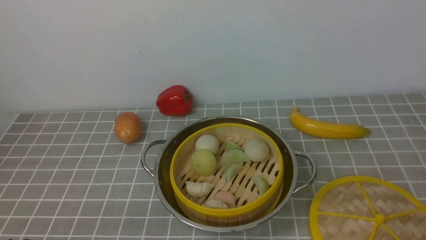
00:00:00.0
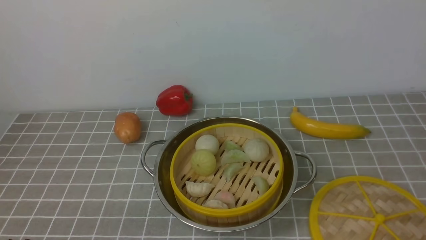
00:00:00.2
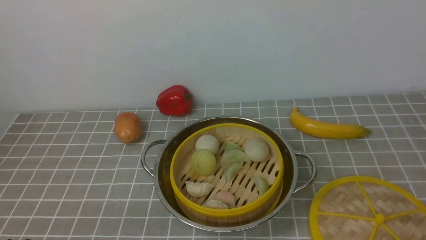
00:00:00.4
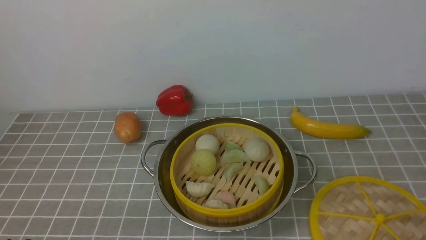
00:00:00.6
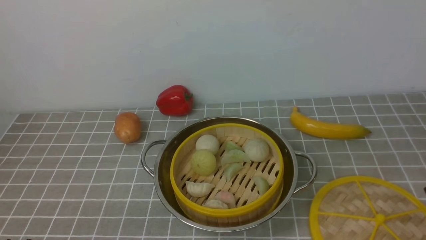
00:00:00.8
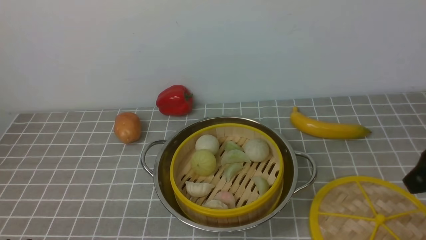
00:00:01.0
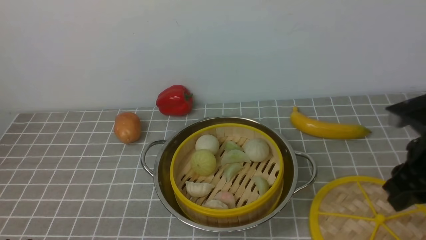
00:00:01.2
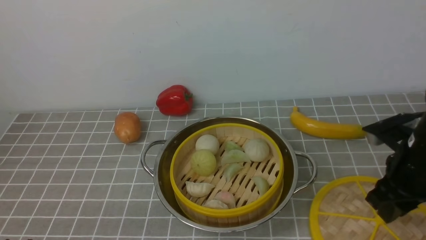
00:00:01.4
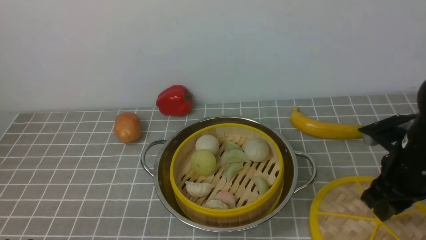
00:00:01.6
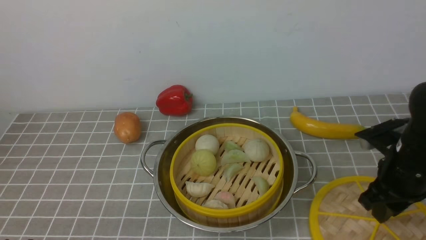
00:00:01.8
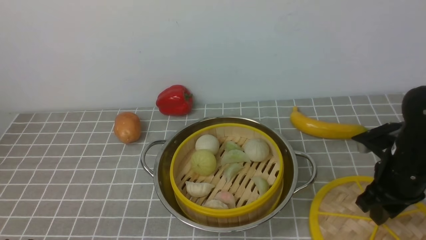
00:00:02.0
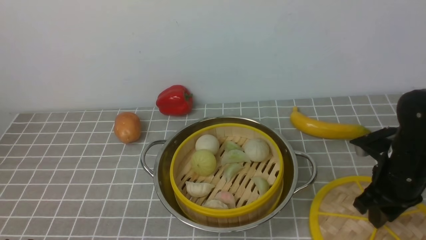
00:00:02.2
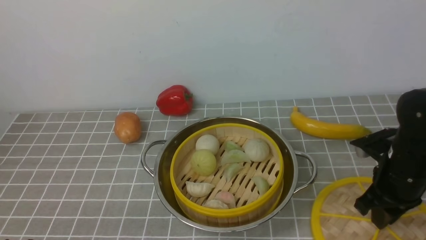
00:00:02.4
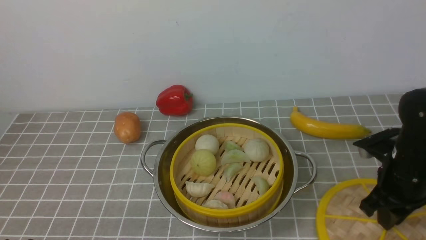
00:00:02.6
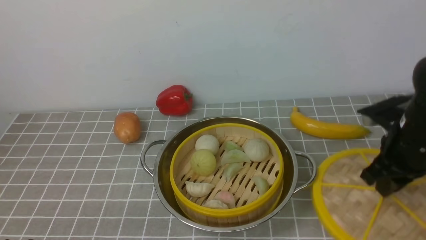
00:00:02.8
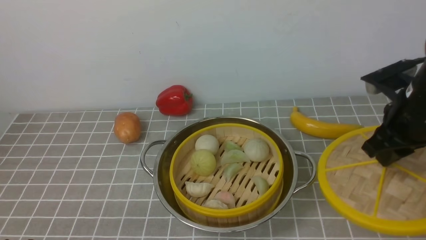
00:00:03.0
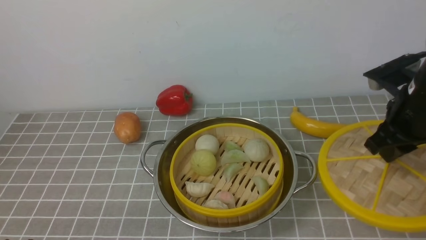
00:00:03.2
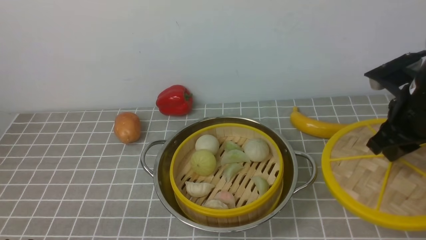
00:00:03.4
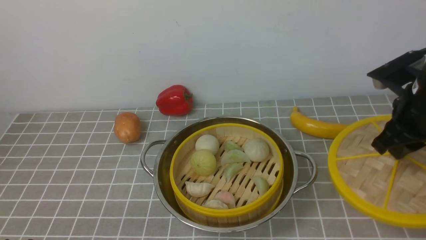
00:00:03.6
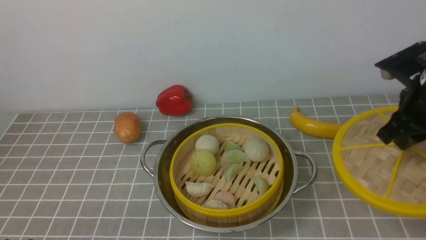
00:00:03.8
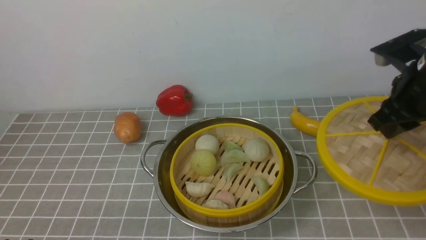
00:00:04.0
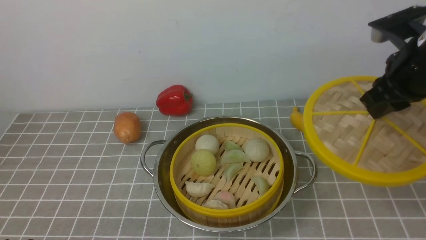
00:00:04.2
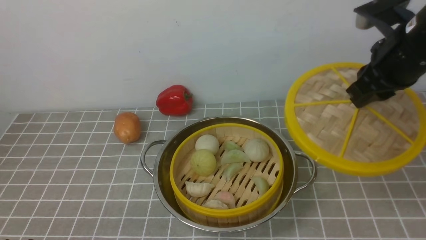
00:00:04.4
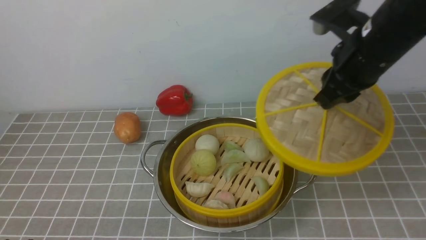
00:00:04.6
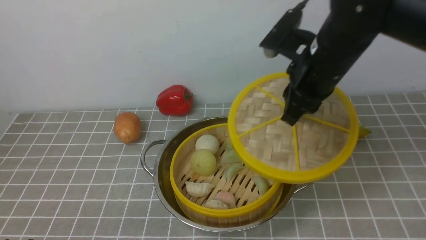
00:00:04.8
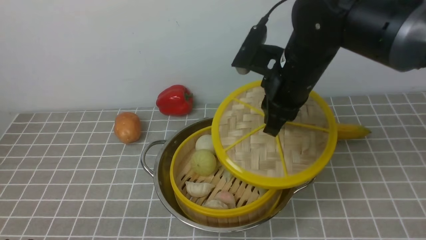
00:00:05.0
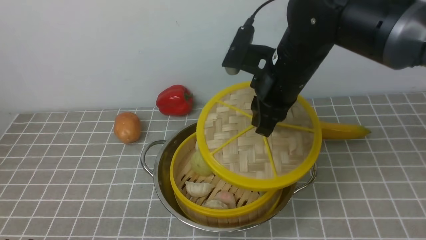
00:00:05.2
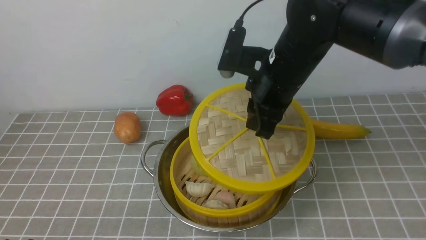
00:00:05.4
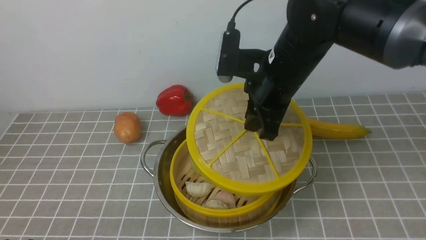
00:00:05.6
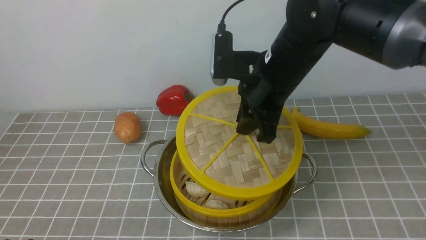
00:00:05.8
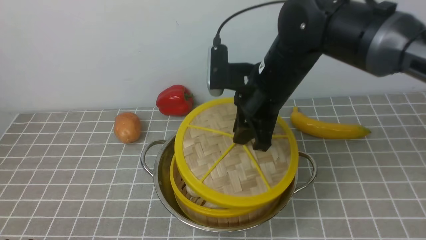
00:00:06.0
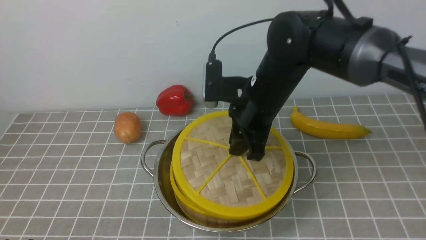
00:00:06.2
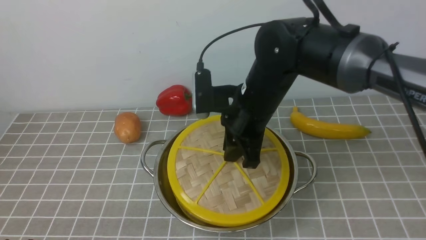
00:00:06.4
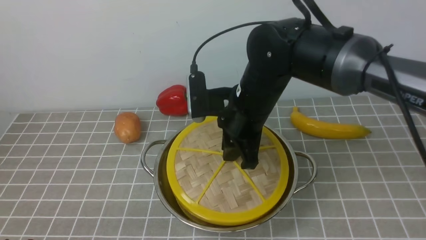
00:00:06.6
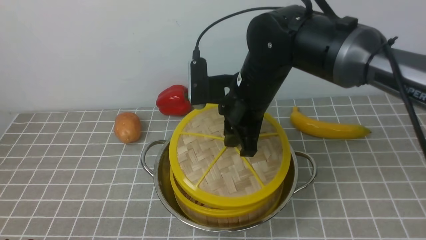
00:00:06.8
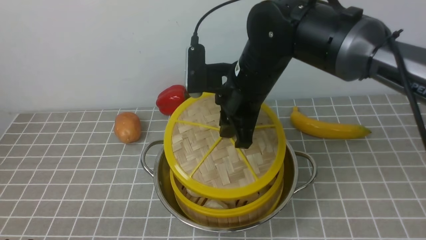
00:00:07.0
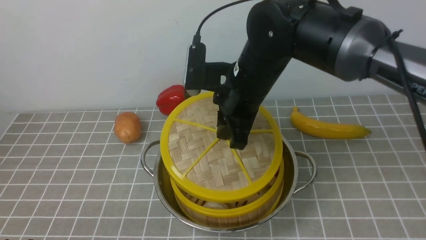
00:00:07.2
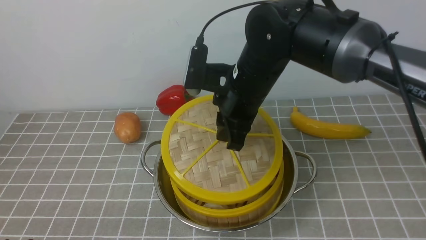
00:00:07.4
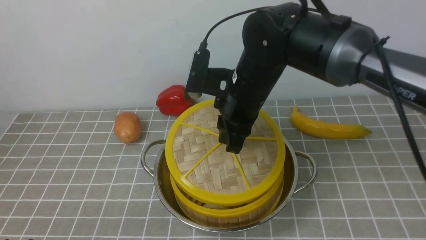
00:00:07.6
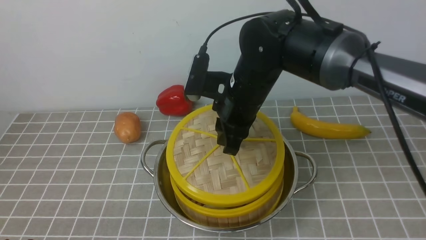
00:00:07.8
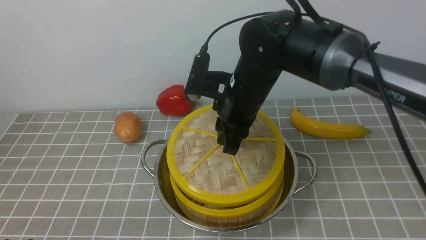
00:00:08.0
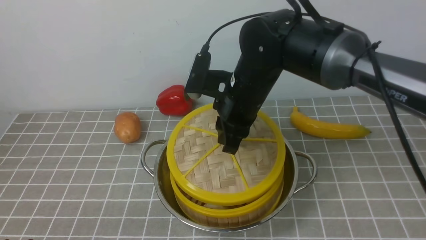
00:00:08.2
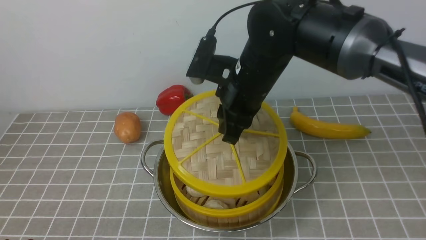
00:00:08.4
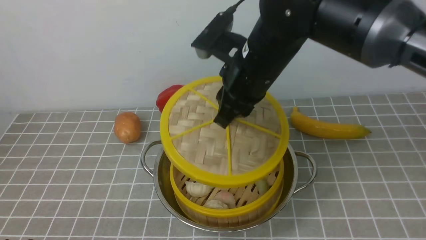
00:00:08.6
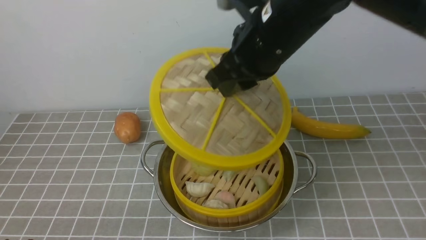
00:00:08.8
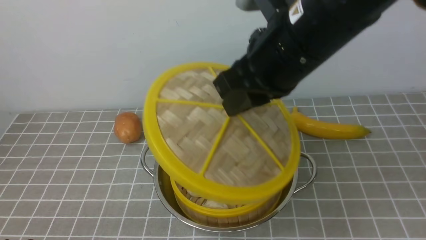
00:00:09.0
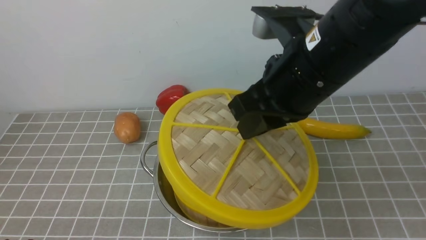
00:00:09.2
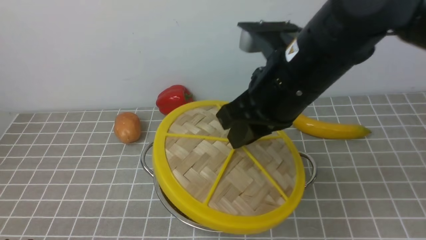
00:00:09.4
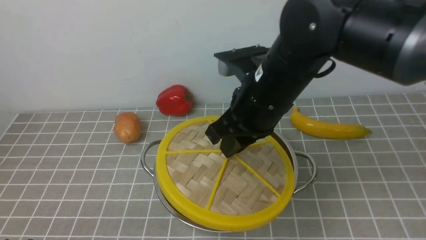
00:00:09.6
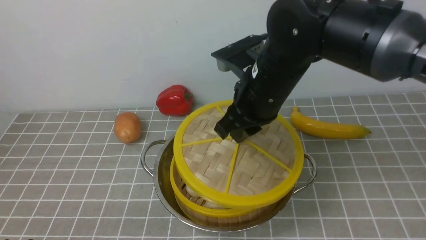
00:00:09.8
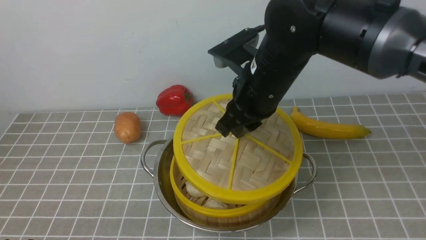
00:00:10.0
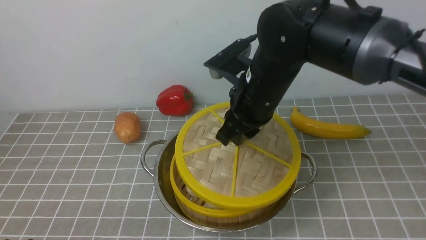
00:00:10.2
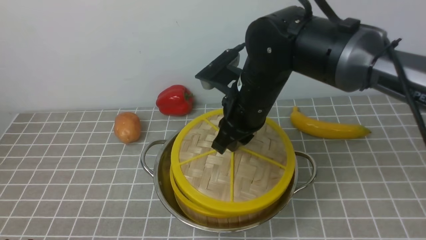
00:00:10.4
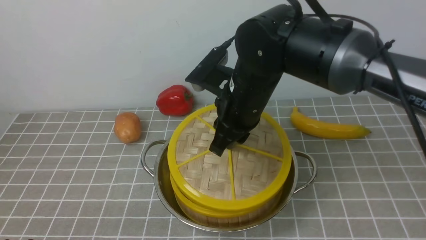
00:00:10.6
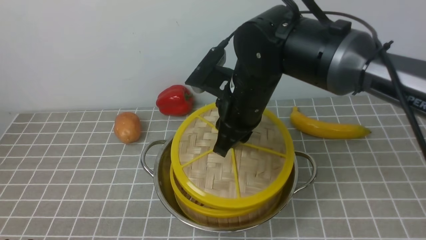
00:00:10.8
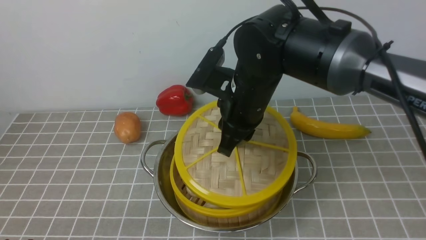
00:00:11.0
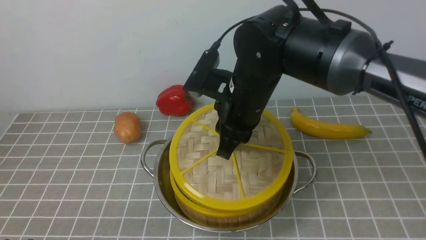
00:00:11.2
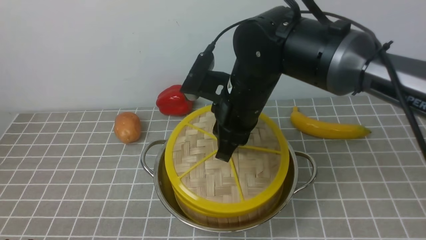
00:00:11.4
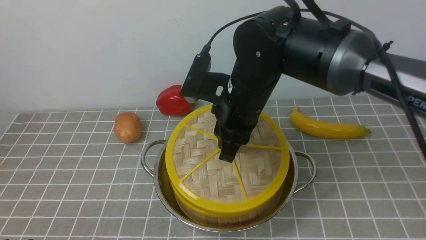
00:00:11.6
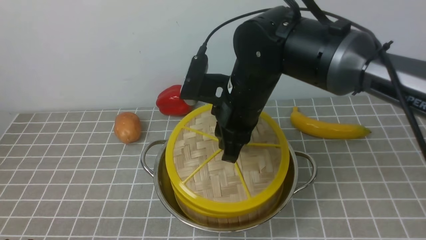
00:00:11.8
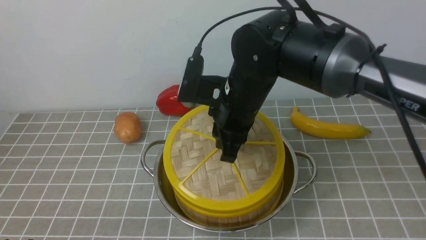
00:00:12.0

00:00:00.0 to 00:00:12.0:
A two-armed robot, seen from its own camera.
Task of the whole recording: place the steamer in the pot on the grey tablecloth, and put the lid on the steamer.
Step, 00:00:00.0 to 00:00:02.6: use the right arm to lift the lid of the steamer.
00:00:00.0 to 00:00:01.6: The right gripper travels forward by about 20 cm.
00:00:01.6 to 00:00:03.0: The right gripper is displaced upward by approximately 5 cm, and closes.
00:00:03.0 to 00:00:04.4: The right gripper travels upward by approximately 5 cm.
00:00:04.4 to 00:00:06.0: The right gripper shifts approximately 15 cm to the left.
00:00:06.0 to 00:00:07.6: The grippers make only small movements.
00:00:07.6 to 00:00:09.0: The right gripper heads upward and backward, covering about 15 cm.
00:00:09.0 to 00:00:10.4: The right gripper is displaced downward and forward by roughly 10 cm.

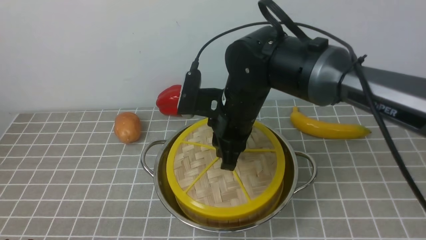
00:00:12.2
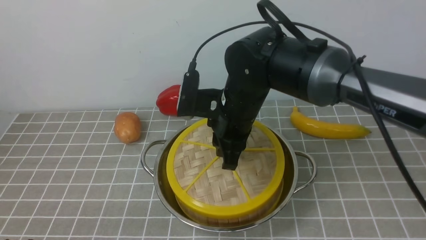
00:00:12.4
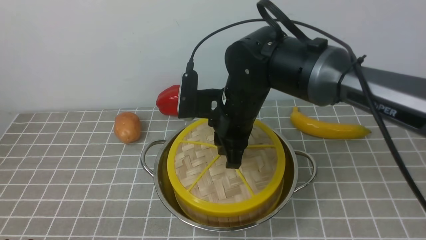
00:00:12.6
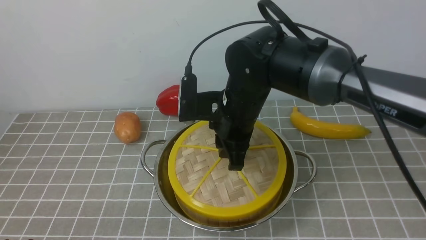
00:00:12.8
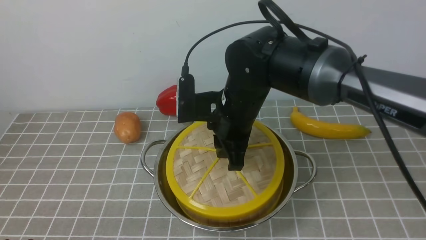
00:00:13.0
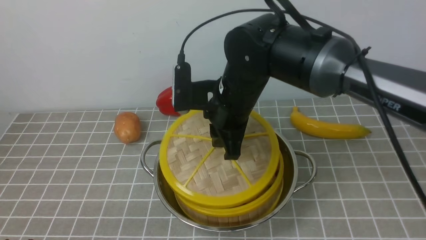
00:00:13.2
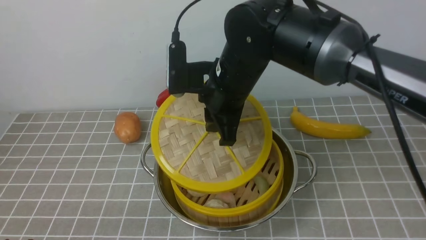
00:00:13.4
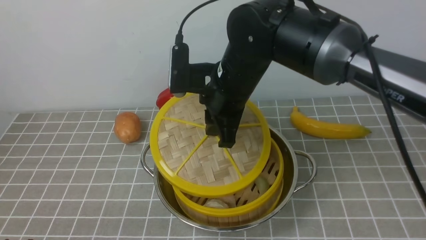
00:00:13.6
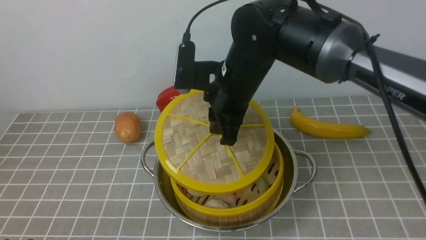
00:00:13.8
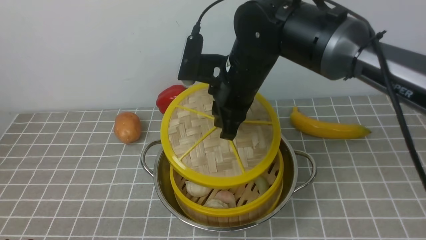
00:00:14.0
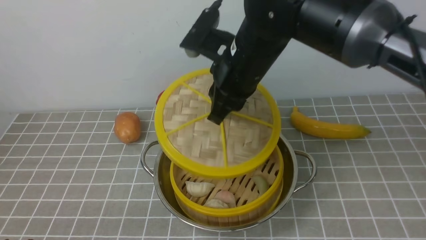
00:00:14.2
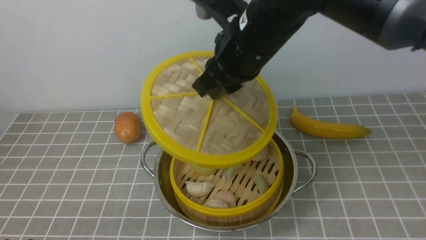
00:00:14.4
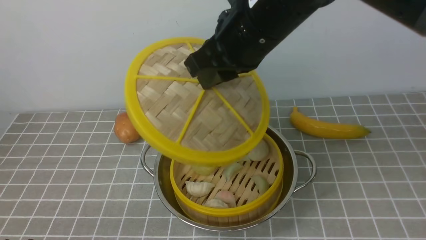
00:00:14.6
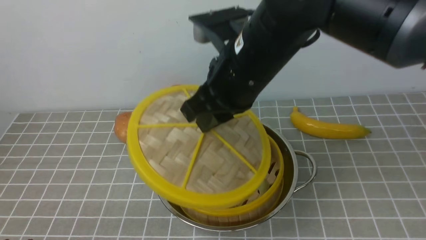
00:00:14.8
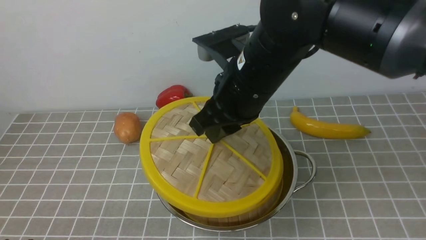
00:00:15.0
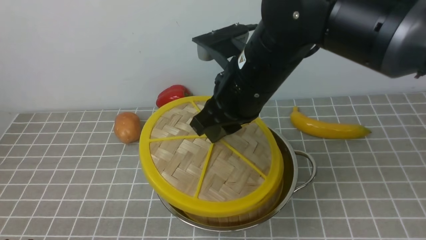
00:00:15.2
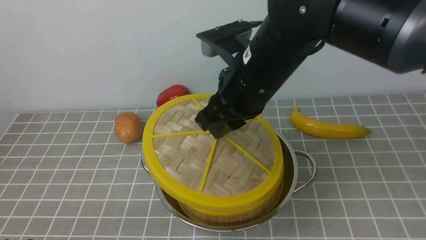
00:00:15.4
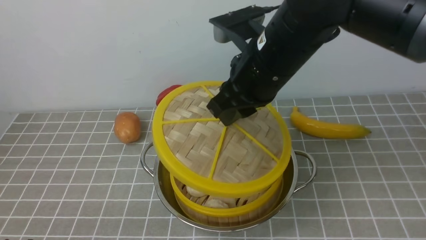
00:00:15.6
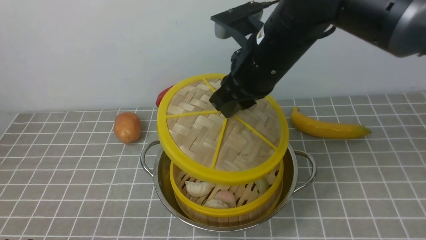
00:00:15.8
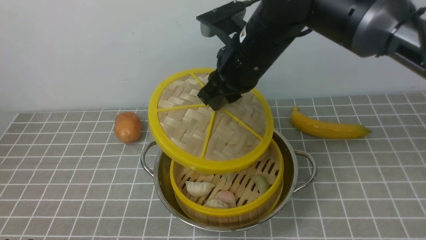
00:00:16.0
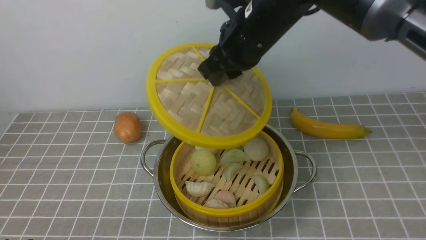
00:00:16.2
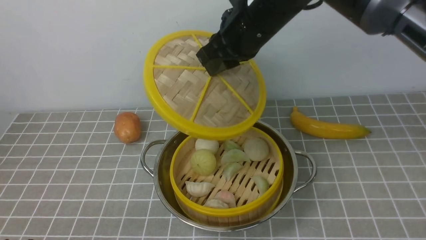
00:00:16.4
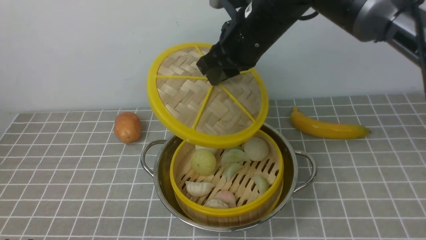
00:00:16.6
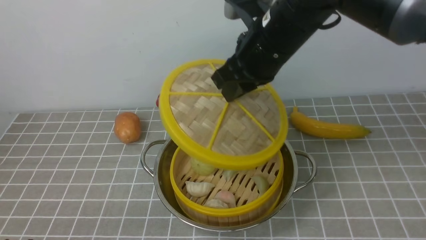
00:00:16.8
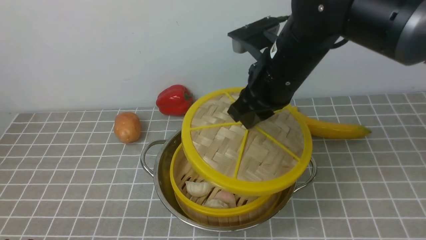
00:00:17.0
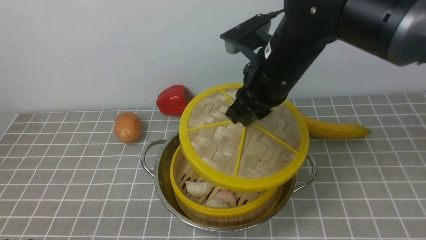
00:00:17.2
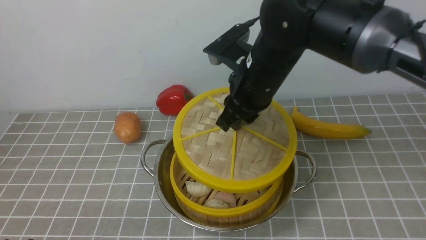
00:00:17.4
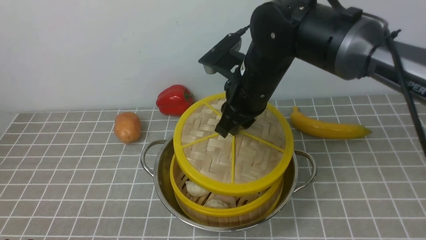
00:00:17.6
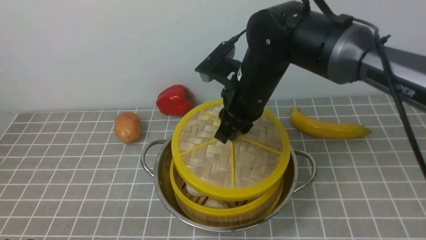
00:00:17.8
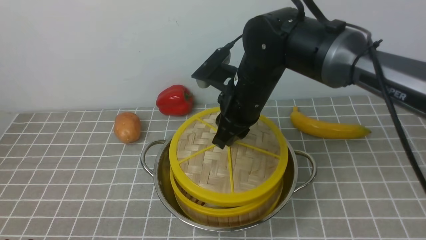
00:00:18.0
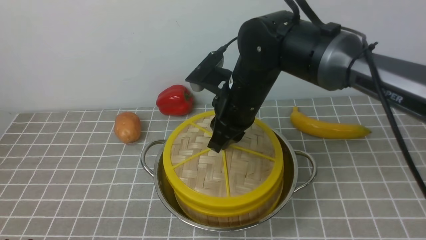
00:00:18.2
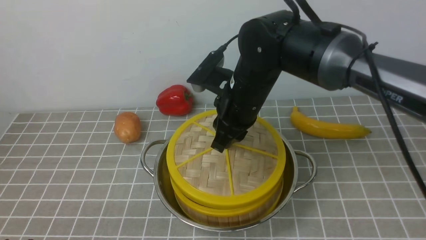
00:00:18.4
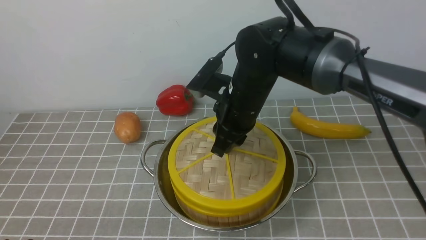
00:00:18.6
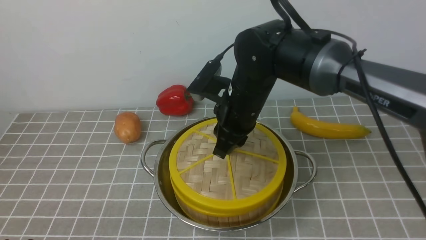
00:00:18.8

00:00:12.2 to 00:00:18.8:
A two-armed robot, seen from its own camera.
Task of the whole recording: place the steamer in the pot on the grey tablecloth, and put the lid on the steamer.
00:00:13.8 to 00:00:15.4: The right gripper shifts by some 5 cm.
00:00:17.2 to 00:00:18.8: The right gripper is displaced downward by roughly 5 cm.
